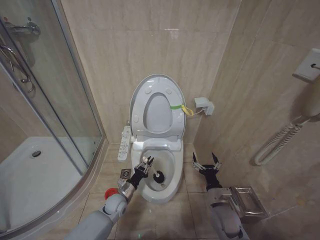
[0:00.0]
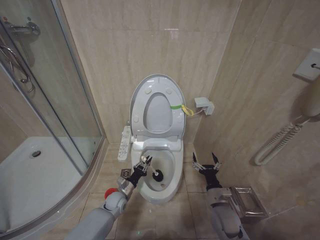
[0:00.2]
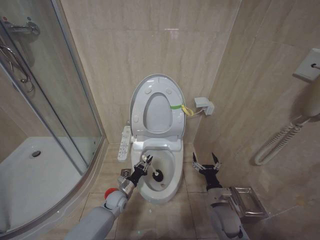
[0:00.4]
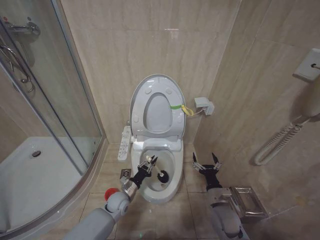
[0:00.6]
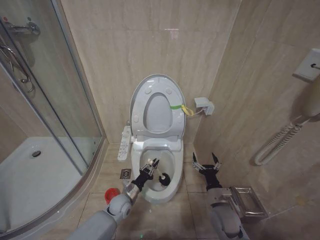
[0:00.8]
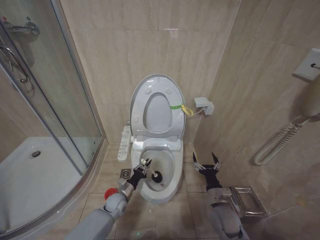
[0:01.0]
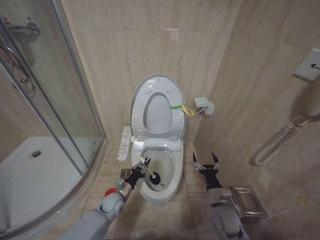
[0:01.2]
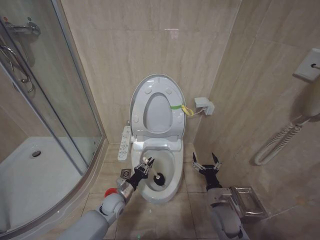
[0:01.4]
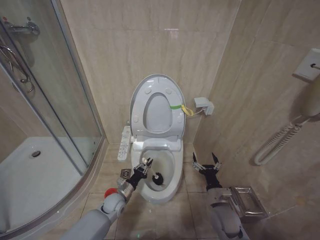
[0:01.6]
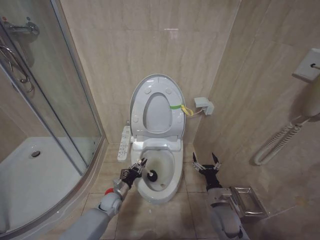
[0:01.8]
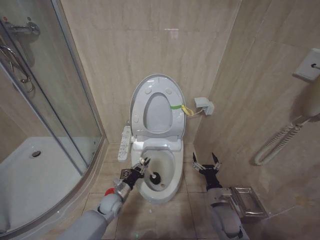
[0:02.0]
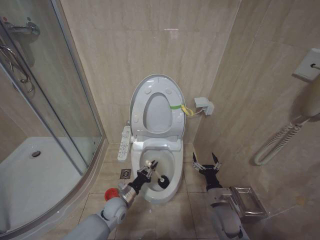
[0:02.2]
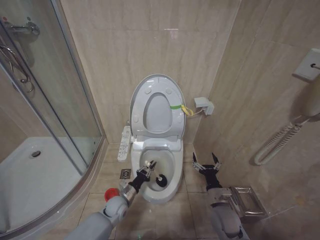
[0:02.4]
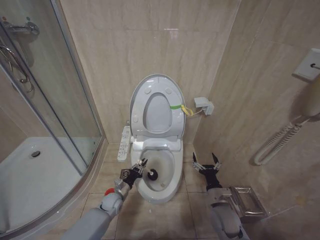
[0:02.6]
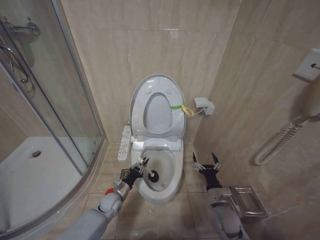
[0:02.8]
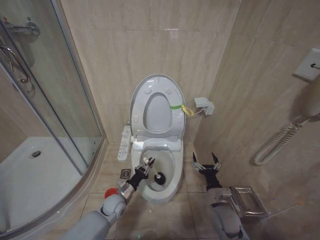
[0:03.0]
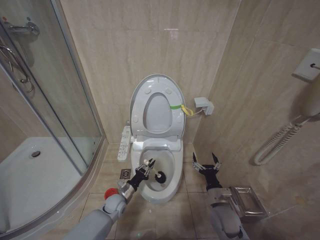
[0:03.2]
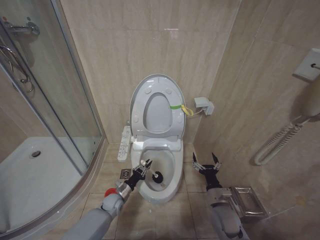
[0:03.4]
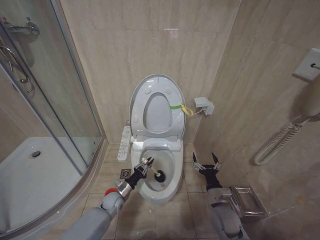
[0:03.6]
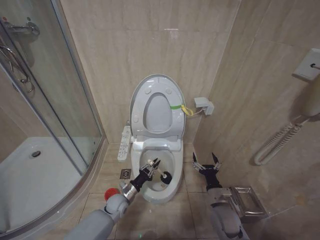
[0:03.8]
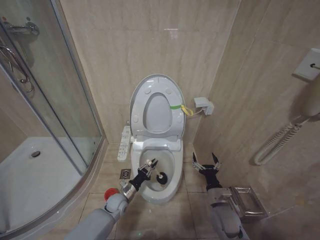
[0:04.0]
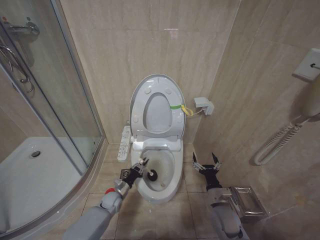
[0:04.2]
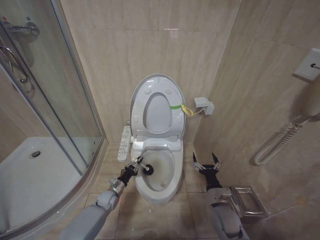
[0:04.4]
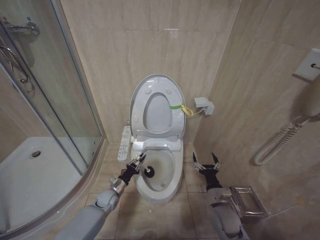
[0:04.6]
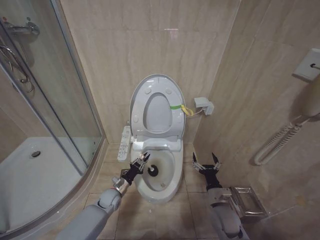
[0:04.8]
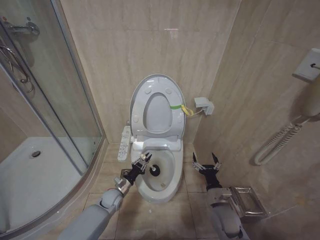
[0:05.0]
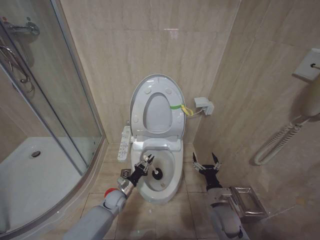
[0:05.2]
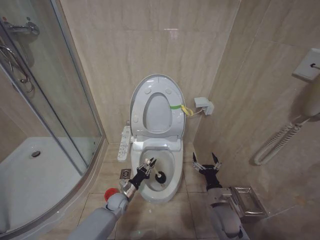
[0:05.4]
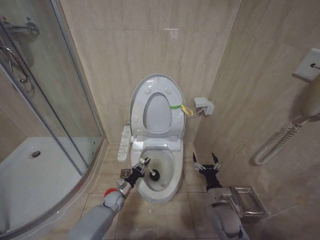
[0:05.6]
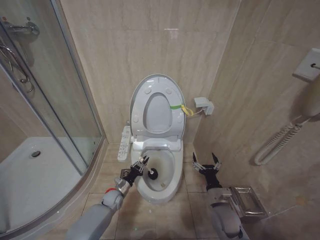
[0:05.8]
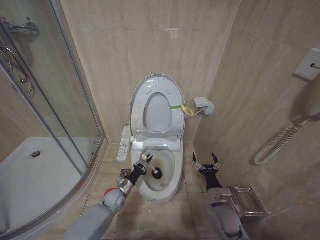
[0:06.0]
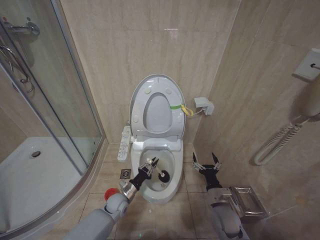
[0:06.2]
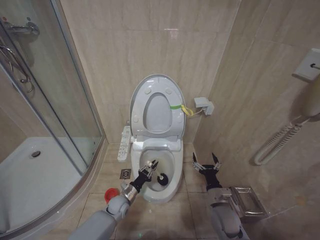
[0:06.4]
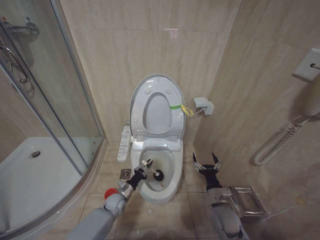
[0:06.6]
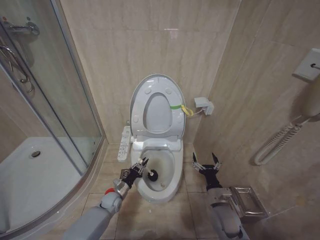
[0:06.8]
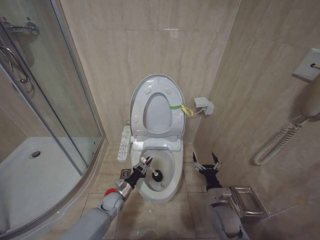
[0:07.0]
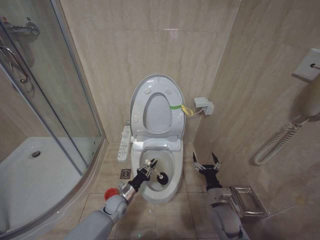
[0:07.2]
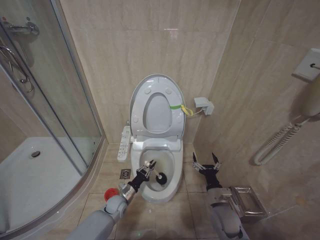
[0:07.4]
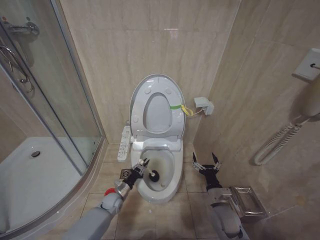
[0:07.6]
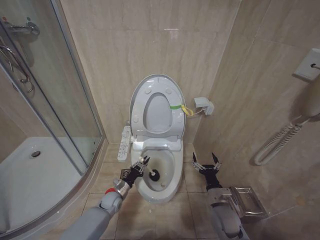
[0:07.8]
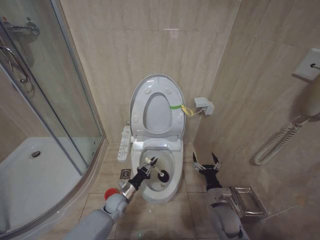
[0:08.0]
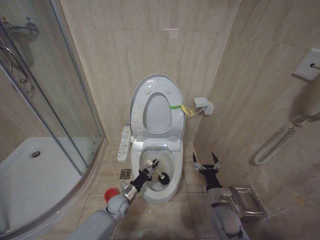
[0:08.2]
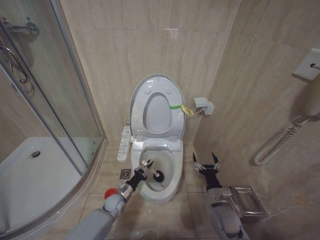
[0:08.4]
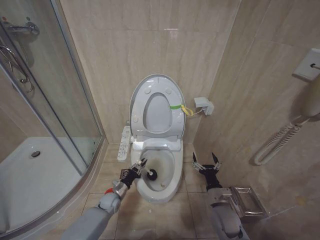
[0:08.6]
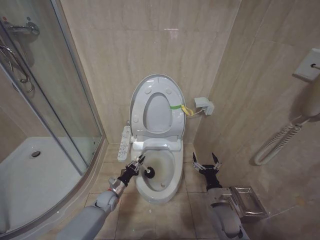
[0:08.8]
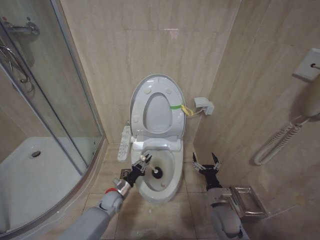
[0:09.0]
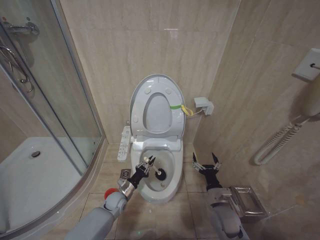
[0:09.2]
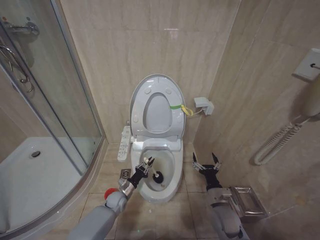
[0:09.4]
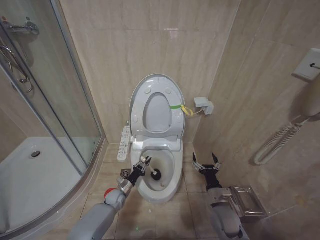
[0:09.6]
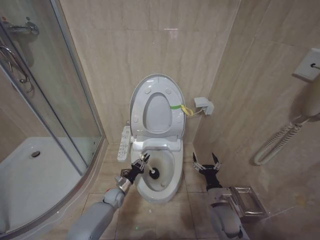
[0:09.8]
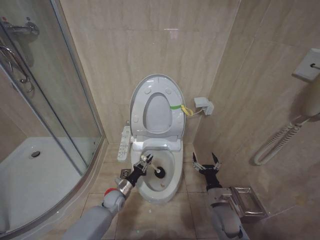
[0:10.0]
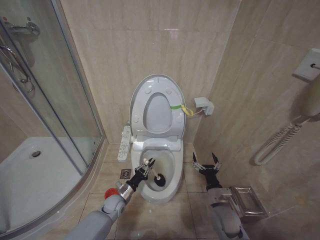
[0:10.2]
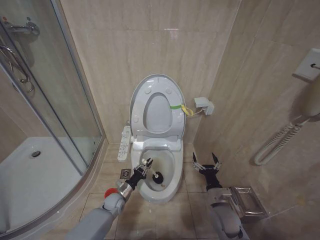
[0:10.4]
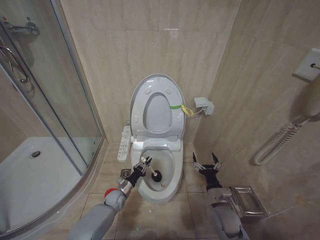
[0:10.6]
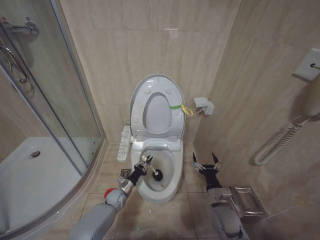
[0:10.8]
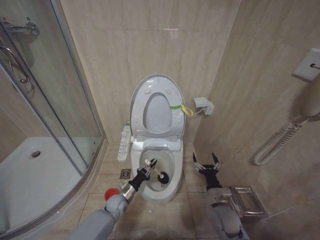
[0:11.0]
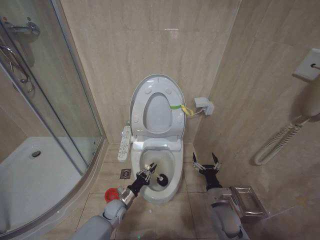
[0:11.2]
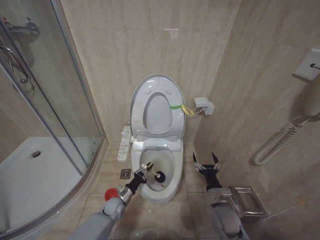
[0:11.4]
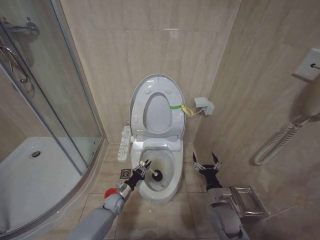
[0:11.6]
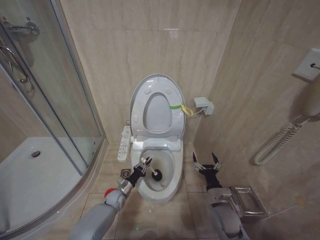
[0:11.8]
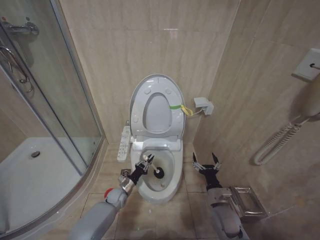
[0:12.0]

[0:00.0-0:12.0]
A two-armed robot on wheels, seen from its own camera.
Task of the whole recording: Open the toilet lid, clean the toilet bowl with a toilet brush, close the toilet lid, and flush.
0:03.0 to 0:04.4: The left gripper shifts some 5 cm downward.
0:04.4 to 0:06.0: There are only small adjustments of the grippers.
0:09.0 to 0:12.0: The grippers stay close to where they were, moving slightly.

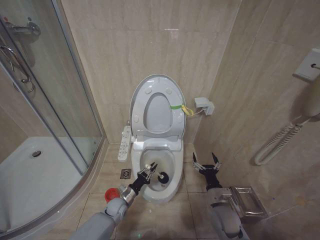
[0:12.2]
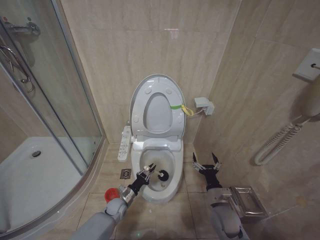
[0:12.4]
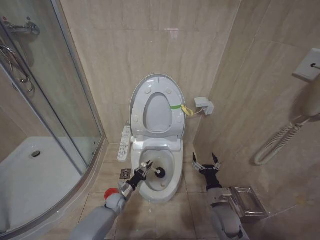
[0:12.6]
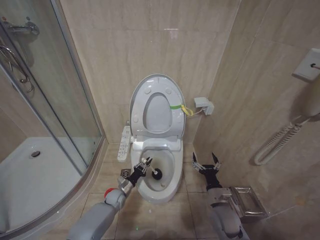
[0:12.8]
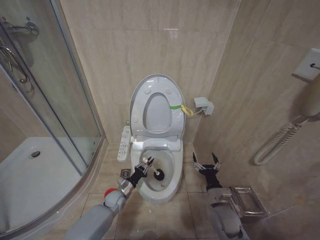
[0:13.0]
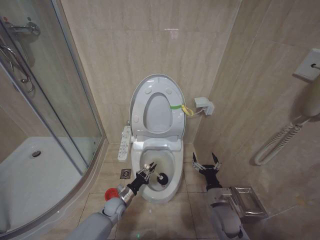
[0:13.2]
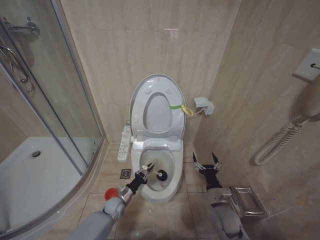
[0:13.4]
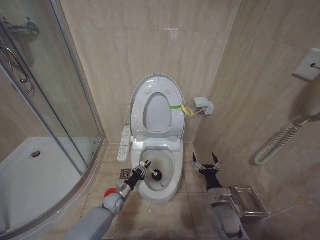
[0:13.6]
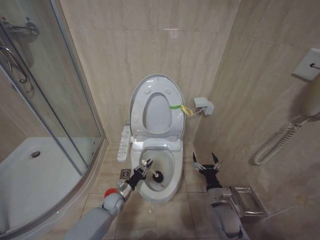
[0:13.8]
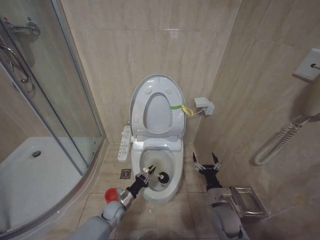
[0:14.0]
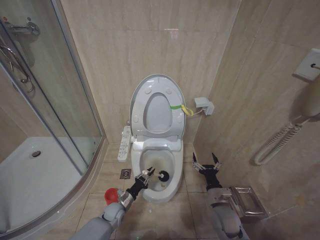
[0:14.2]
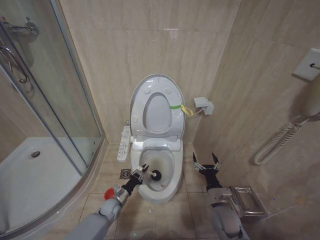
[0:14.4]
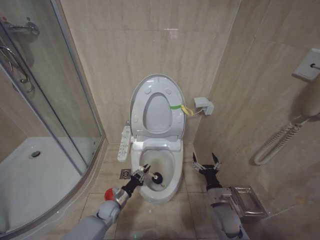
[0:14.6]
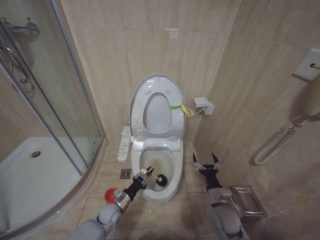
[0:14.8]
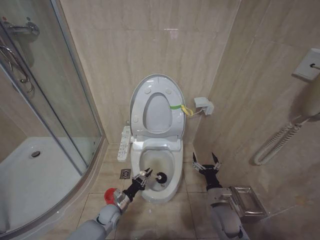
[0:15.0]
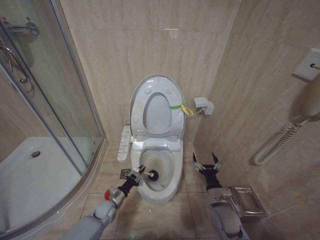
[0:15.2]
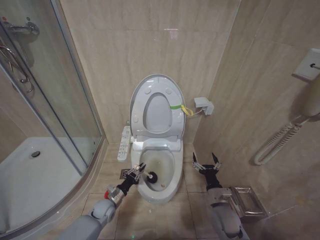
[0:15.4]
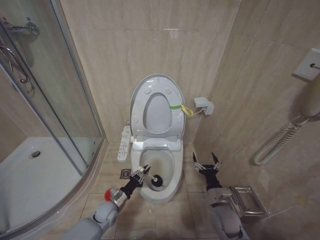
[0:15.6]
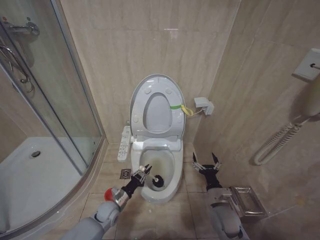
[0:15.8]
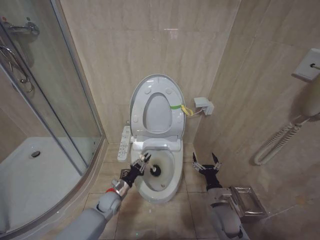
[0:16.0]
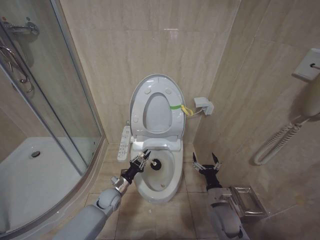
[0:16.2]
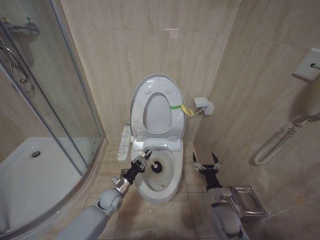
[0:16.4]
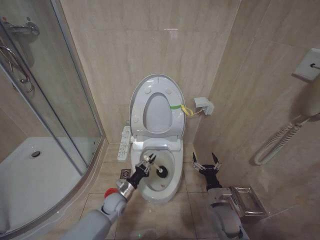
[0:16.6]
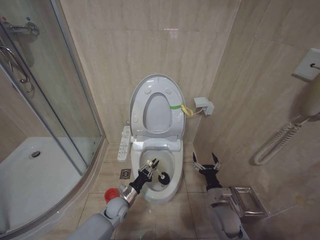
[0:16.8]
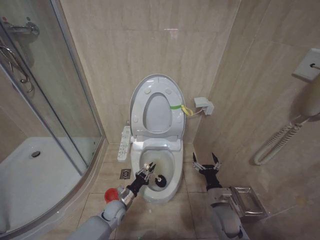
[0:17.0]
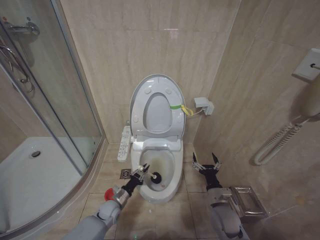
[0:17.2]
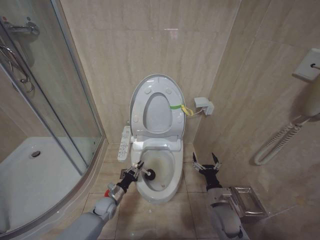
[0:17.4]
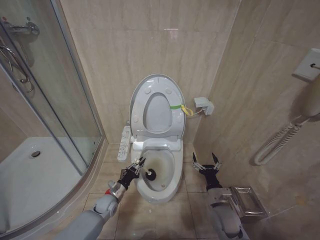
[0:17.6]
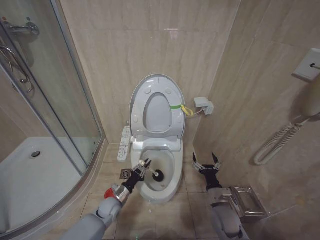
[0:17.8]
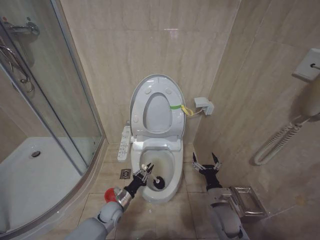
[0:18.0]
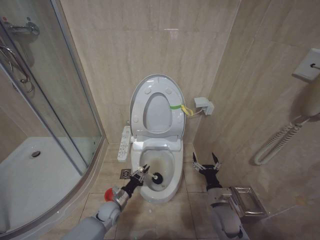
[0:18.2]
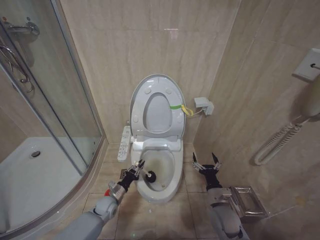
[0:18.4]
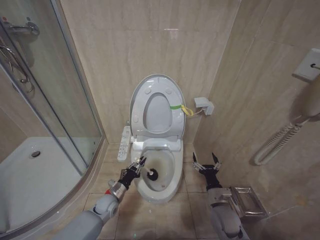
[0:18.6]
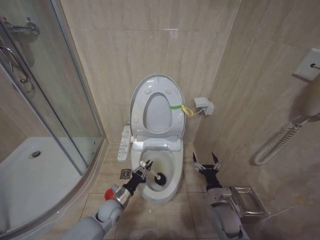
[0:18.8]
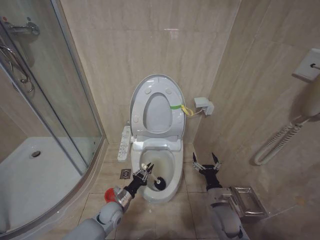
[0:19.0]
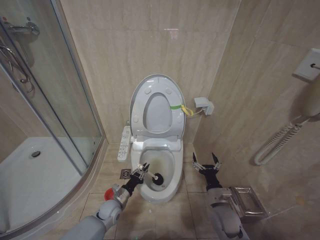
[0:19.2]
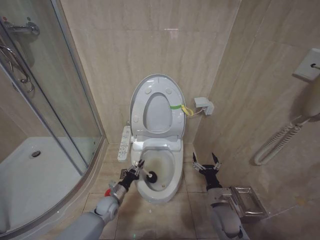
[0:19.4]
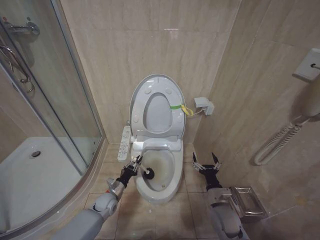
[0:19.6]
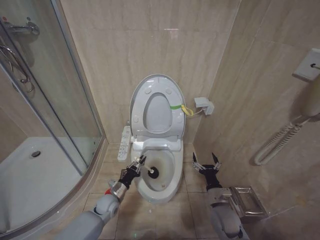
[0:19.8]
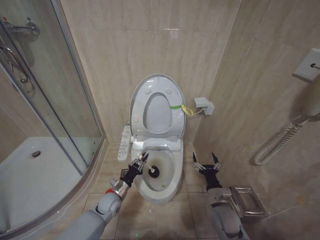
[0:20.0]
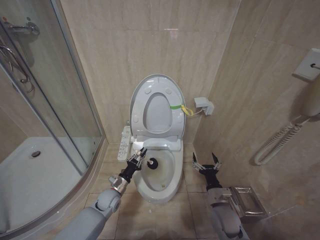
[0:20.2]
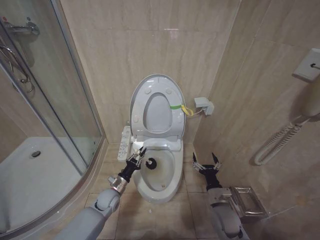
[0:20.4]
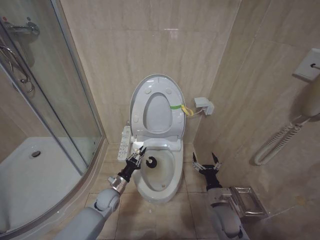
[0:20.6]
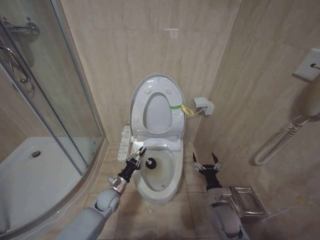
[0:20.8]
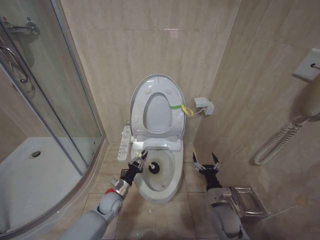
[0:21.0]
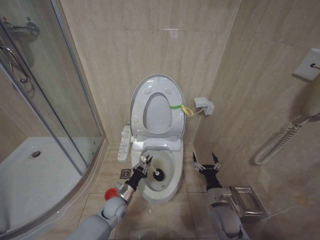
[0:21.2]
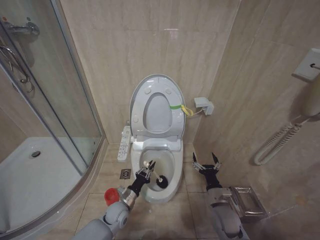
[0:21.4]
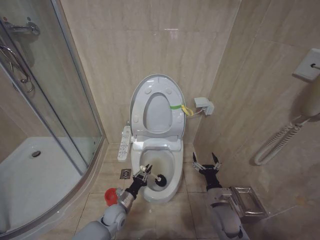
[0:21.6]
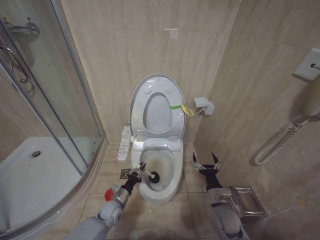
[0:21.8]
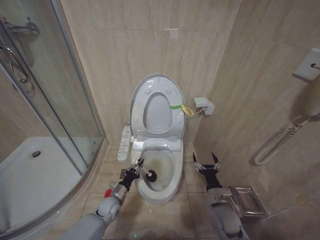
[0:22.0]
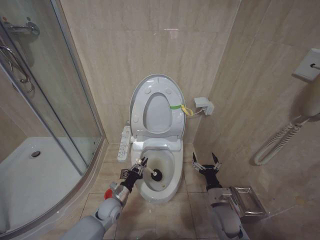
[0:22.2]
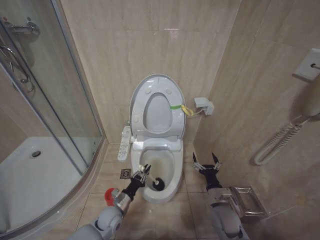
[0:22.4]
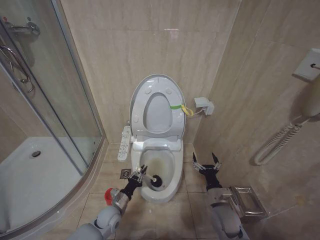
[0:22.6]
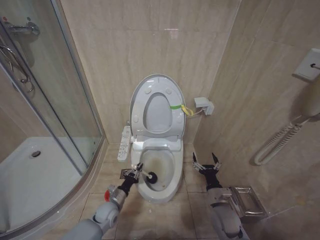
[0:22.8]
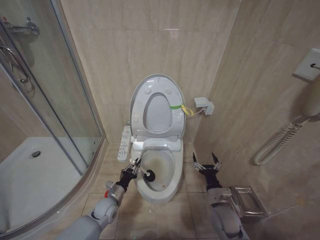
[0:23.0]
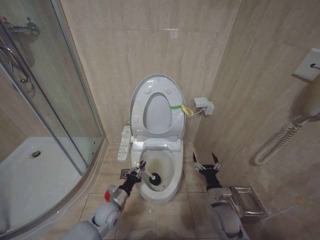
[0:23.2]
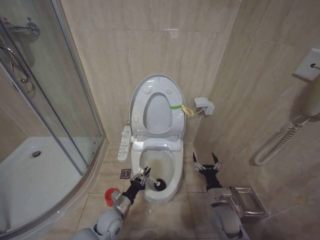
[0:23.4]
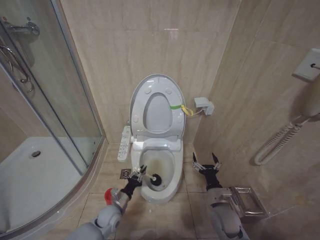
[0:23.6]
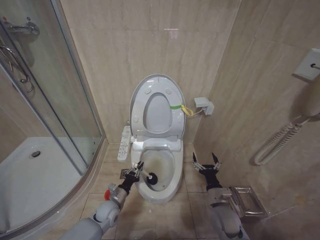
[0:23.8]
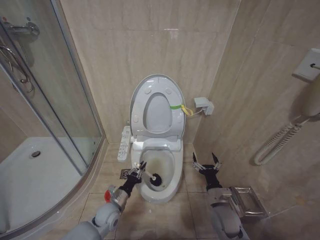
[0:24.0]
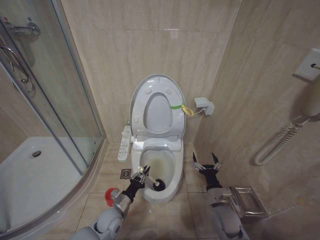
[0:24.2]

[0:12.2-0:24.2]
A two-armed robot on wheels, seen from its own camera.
Task of the whole recording: Open the toilet lid, clean the toilet bowl with a toilet brush, close the toilet lid, and flush.
0:12.2 to 0:13.8: The grippers make only small movements.
0:13.8 to 0:15.2: The left gripper moves about 5 cm.
0:15.2 to 0:16.6: The left gripper travels upward by roughly 5 cm.
0:16.6 to 0:18.2: The left gripper shifts by approximately 5 cm.
0:18.2 to 0:19.8: The grippers stay close to where they were, moving slightly.
0:19.8 to 0:21.2: There are only small adjustments of the grippers.
0:21.2 to 0:24.2: There are only small adjustments of the grippers.
